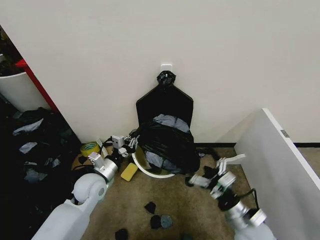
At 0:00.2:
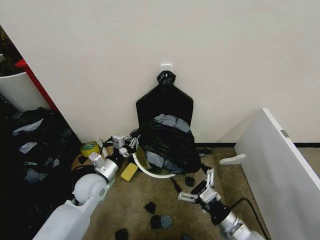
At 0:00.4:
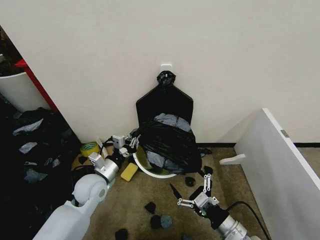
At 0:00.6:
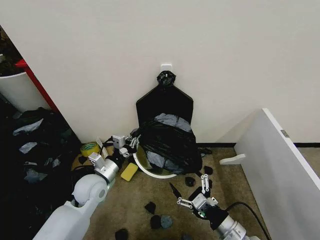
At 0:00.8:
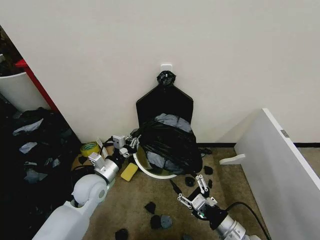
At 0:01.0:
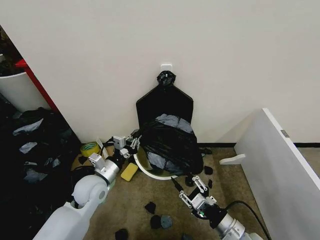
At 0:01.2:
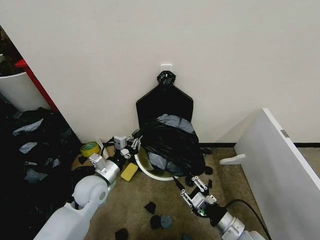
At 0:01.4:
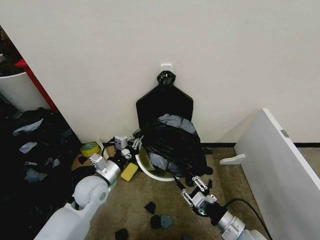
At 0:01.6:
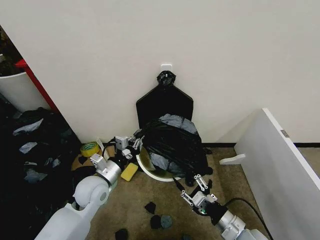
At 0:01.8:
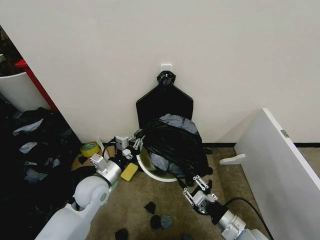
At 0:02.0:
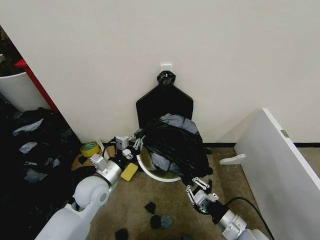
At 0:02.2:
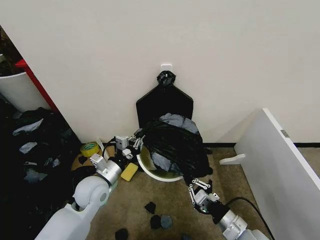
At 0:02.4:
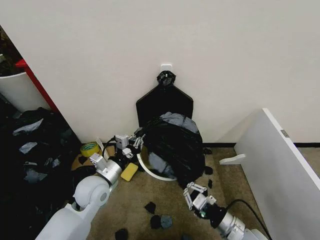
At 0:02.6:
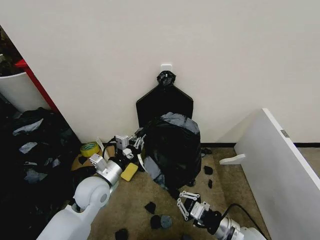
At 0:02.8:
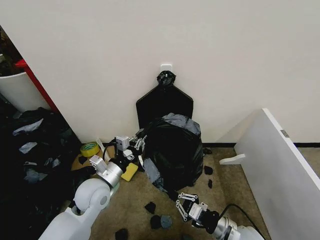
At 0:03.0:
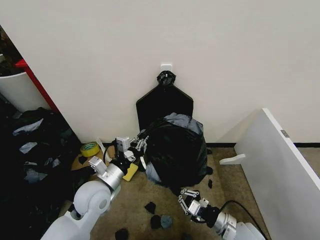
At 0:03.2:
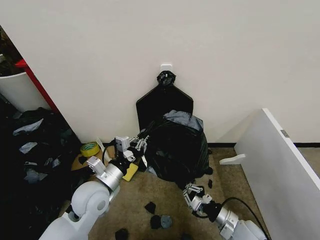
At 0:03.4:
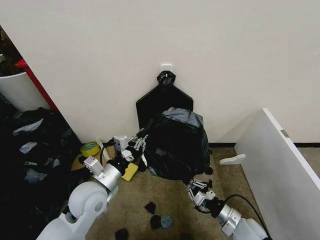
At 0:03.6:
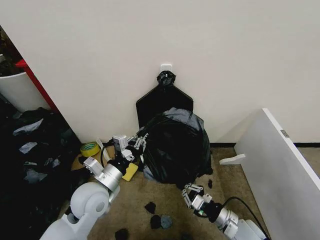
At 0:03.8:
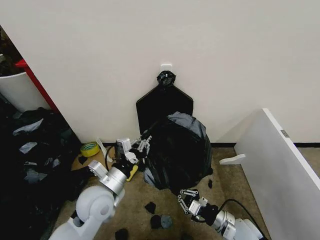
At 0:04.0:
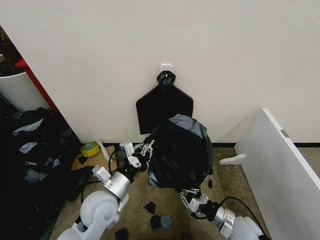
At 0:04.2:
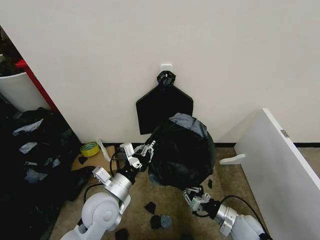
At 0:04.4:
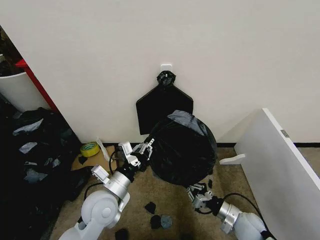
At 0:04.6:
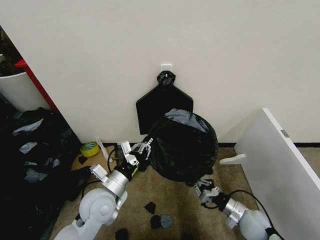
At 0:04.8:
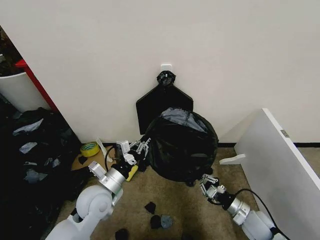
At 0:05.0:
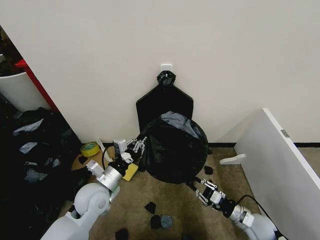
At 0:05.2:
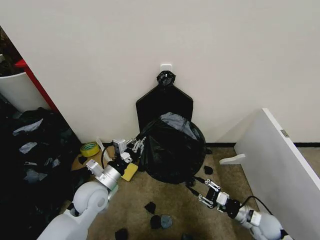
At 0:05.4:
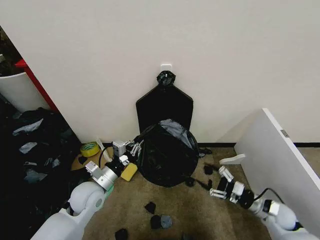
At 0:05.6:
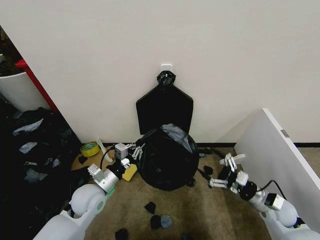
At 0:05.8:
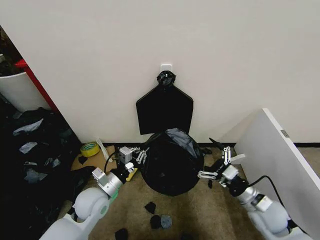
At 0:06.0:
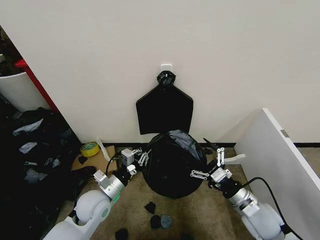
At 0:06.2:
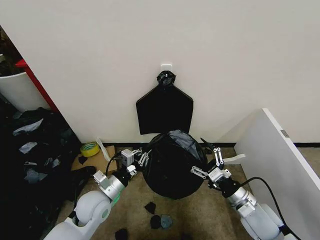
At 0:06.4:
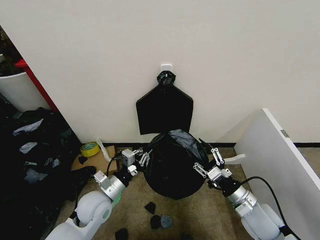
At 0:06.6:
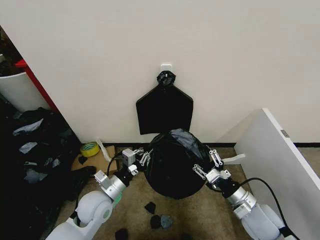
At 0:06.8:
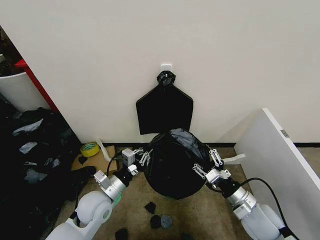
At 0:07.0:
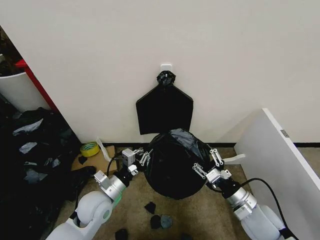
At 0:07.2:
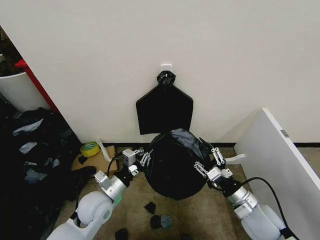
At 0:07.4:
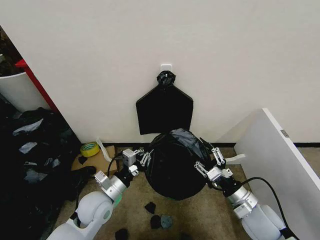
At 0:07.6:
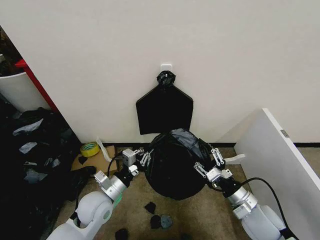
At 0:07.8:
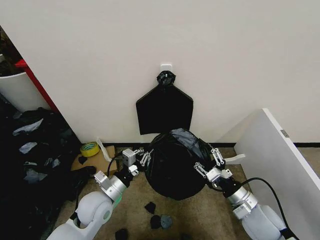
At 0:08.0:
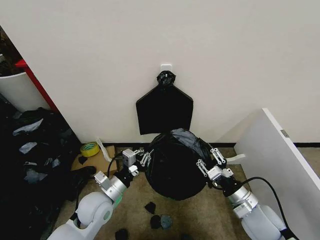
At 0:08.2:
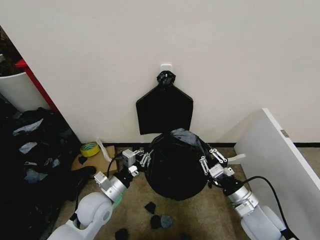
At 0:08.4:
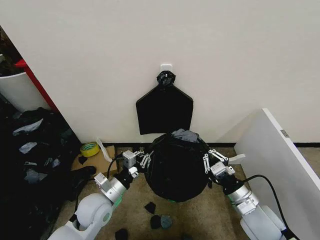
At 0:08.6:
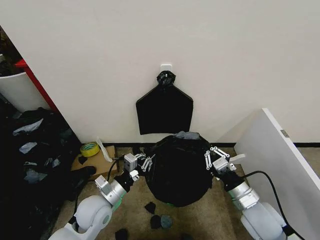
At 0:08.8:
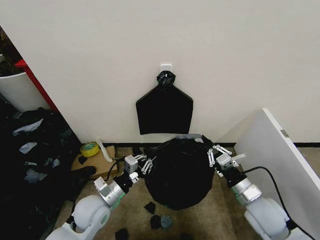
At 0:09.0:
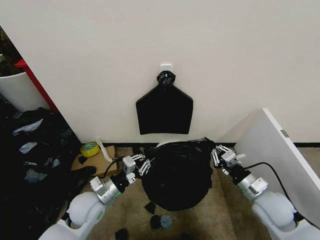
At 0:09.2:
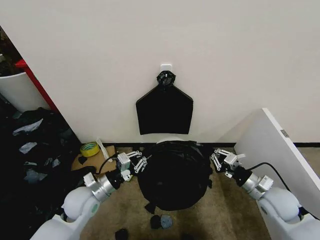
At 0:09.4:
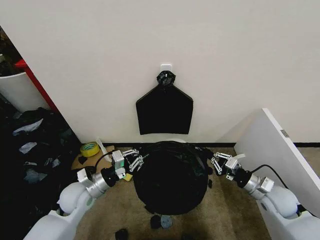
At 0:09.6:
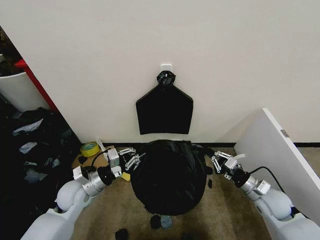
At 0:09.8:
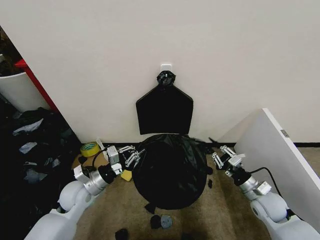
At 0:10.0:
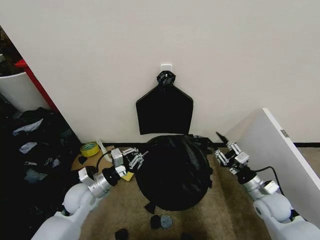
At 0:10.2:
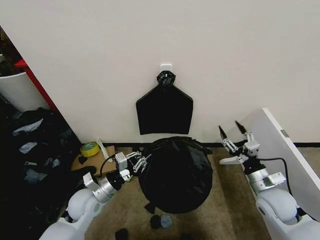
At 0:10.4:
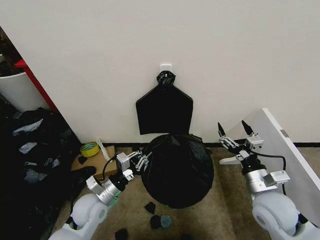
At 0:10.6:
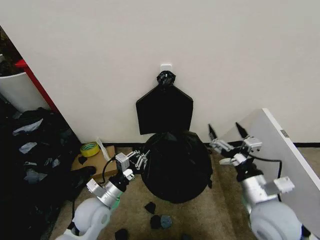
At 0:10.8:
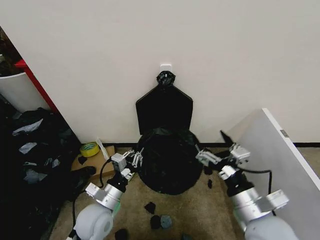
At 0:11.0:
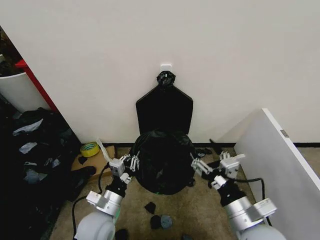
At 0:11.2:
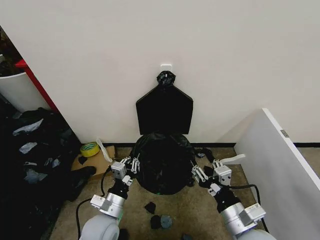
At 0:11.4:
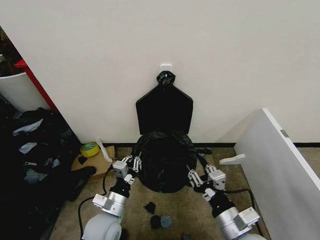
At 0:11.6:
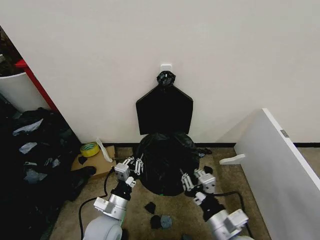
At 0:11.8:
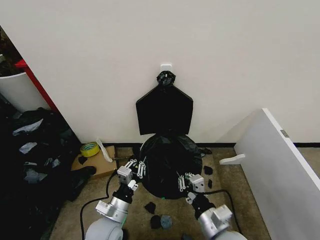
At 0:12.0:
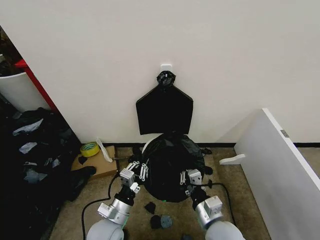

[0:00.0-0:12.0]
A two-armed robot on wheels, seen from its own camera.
Task of the whole recording: Place the garbage bag over the trash bin.
0:00.0 to 0:01.6: The right gripper closes up.
0:01.6 to 0:03.0: The right gripper goes about 5 cm downward, and closes its fingers.
0:03.0 to 0:04.4: The right gripper shifts by about 5 cm.
0:04.4 to 0:06.0: The right gripper travels upward by roughly 10 cm, and opens, while the left gripper shifts by roughly 5 cm.
0:06.0 to 0:07.6: The right gripper closes its fingers.
0:07.6 to 0:09.0: The right gripper changes place by roughly 5 cm, and closes up.
0:09.0 to 0:10.4: The right gripper opens.
0:10.4 to 0:12.0: The left gripper is displaced backward and to the right by roughly 10 cm, while the right gripper travels to the left and backward by roughly 15 cm, and closes up.

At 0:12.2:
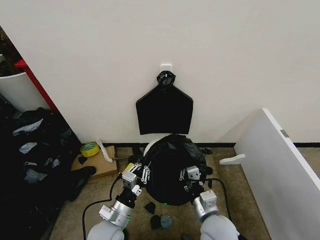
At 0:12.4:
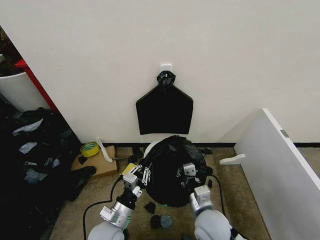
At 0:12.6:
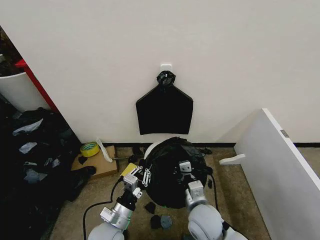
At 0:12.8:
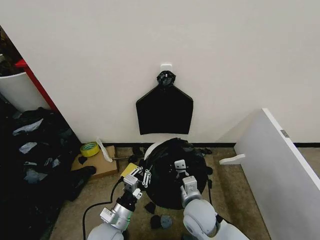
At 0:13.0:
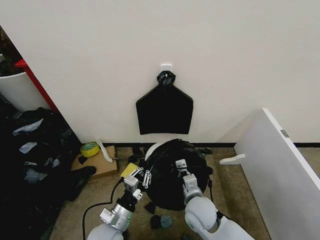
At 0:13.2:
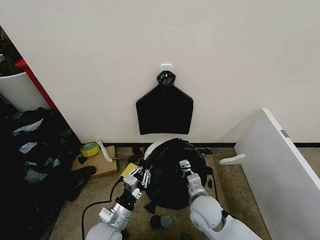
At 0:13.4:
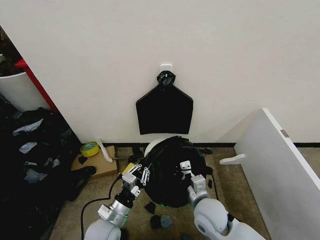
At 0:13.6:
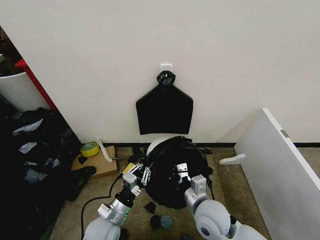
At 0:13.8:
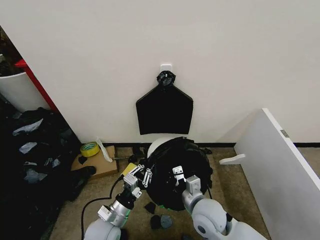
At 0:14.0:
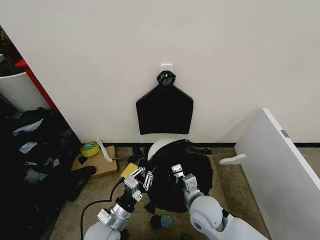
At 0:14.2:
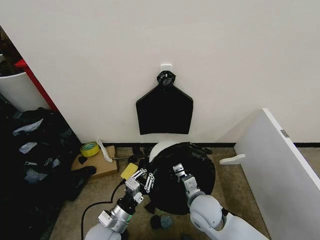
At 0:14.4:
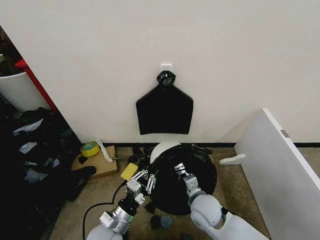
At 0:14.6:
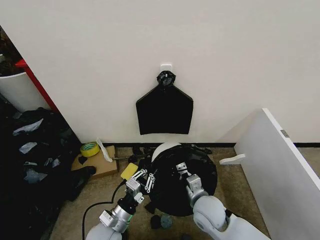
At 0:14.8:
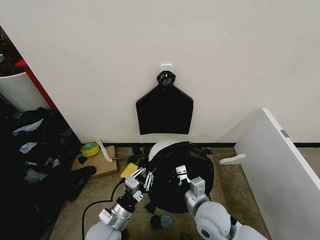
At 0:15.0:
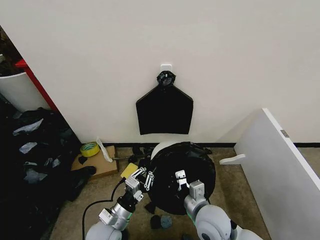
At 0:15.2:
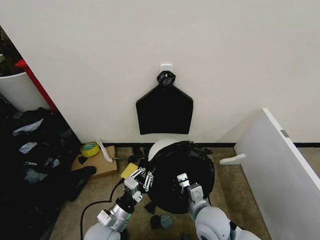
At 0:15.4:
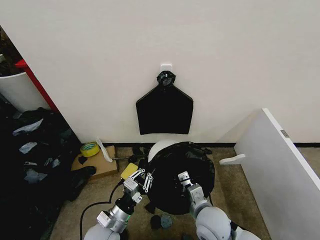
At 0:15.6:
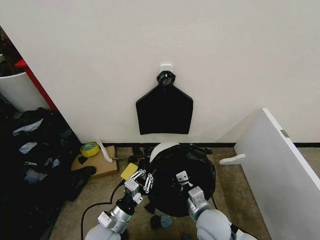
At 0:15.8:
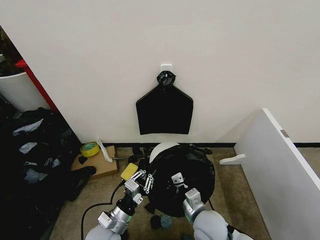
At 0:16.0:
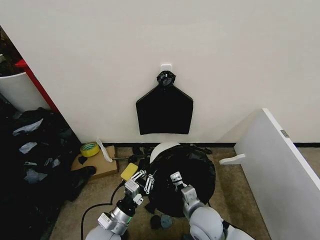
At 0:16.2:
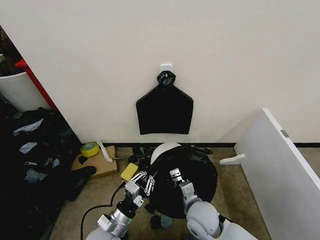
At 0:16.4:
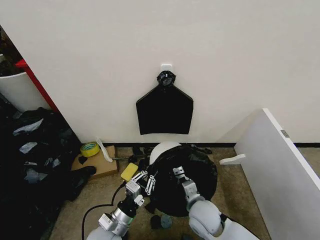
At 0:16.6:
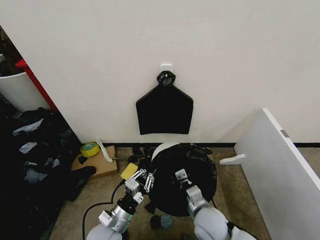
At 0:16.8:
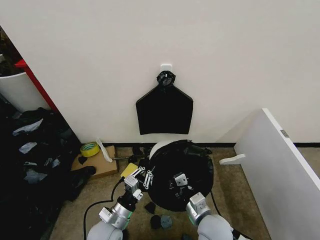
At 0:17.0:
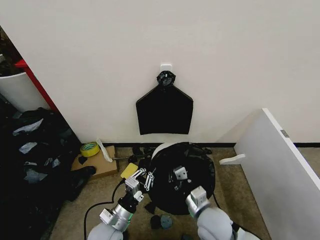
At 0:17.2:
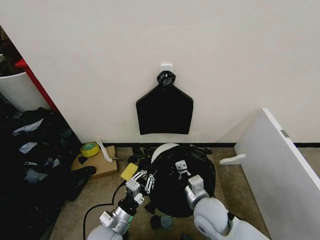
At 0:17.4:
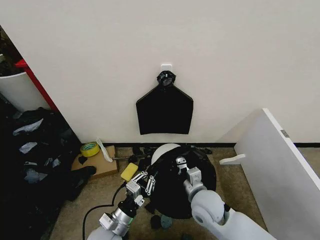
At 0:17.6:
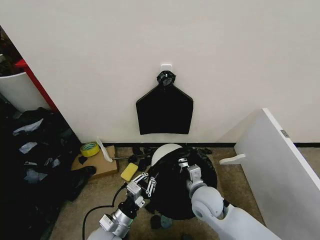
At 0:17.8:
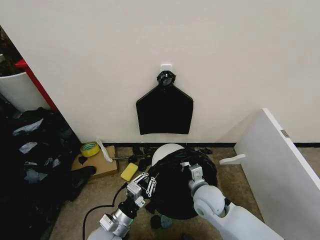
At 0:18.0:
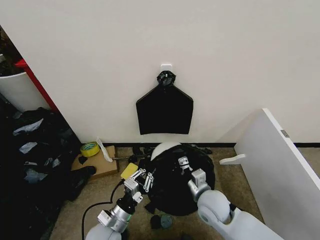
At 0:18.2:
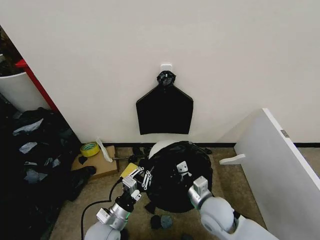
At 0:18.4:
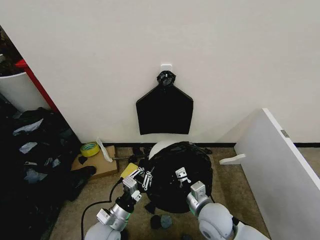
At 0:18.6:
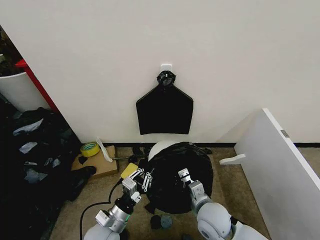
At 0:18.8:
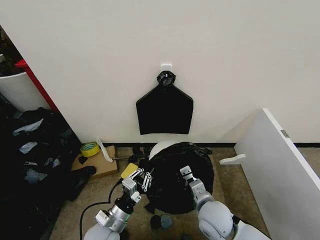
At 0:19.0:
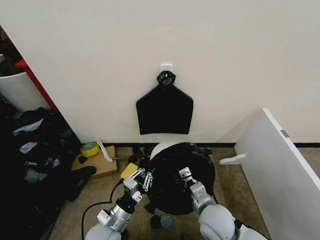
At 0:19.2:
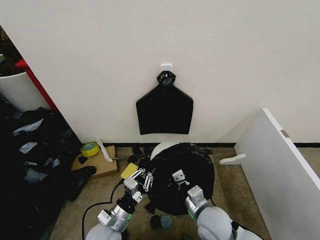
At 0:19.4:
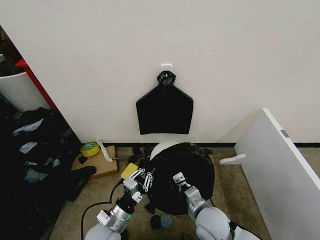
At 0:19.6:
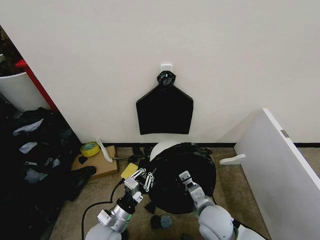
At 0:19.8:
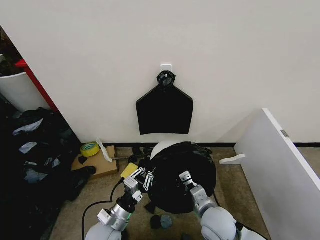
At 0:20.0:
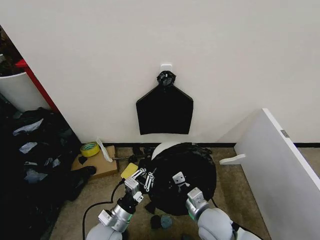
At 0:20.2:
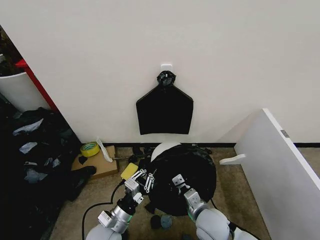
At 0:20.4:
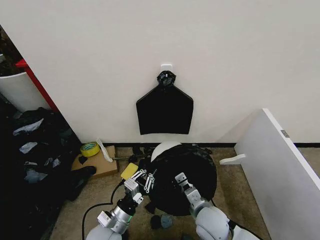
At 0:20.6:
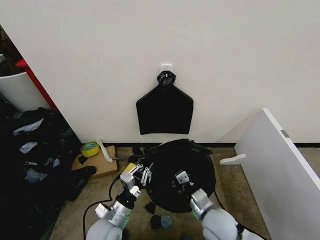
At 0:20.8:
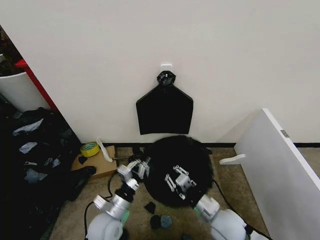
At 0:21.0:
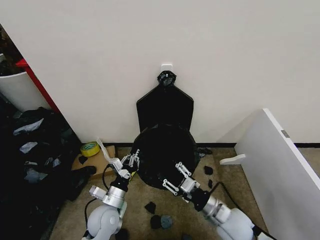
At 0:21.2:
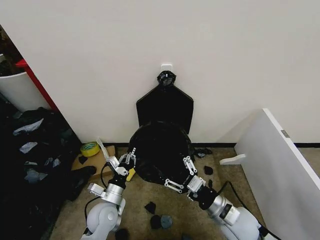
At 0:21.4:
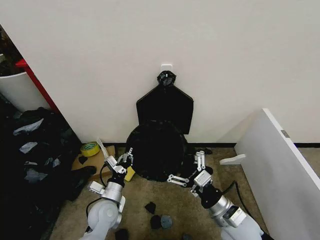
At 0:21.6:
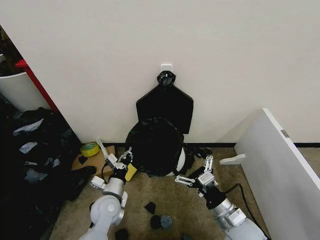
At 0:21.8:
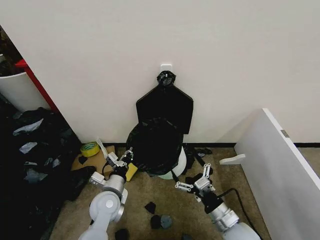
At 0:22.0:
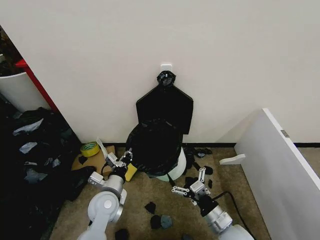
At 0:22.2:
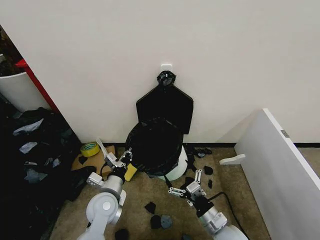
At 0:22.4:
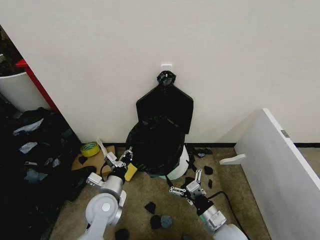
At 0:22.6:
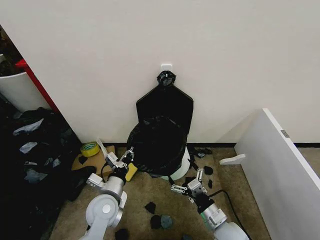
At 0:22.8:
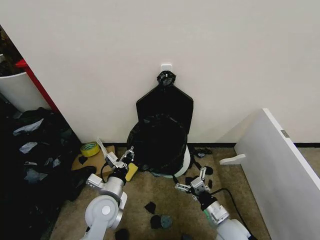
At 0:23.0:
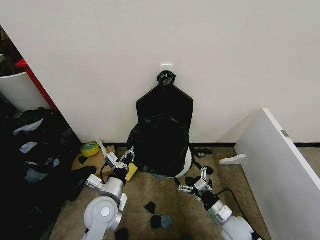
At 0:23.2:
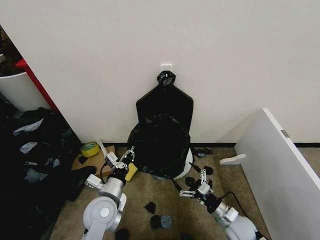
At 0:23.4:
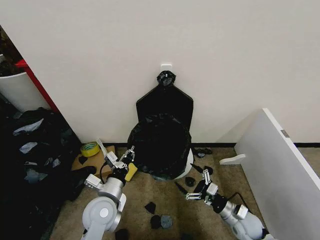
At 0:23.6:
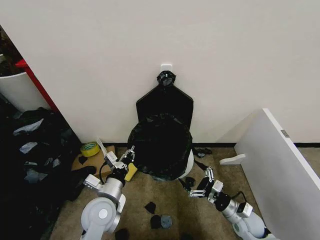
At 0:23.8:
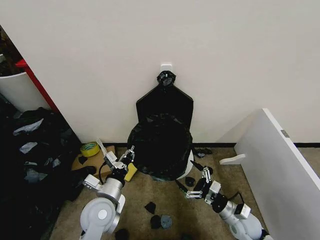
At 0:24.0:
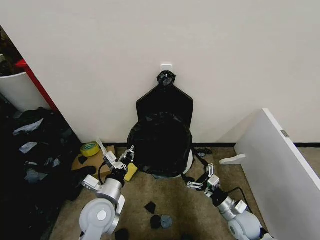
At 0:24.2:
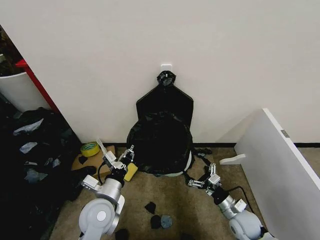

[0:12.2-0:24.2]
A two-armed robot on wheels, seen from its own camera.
Task of the whole recording: Place the garbage bag over the trash bin.
0:13.8 to 0:15.2: The grippers move only a little.
0:15.2 to 0:16.6: The grippers move only a little.
0:19.8 to 0:21.2: The left gripper travels forward by some 5 cm. Meanwhile the right gripper heads to the right, covering approximately 5 cm, and opens up.
0:21.2 to 0:22.6: The left gripper moves upward, approximately 5 cm. Meanwhile the right gripper goes some 5 cm downward.
0:22.6 to 0:24.2: The right gripper shifts roughly 10 cm to the right, forward and downward.
